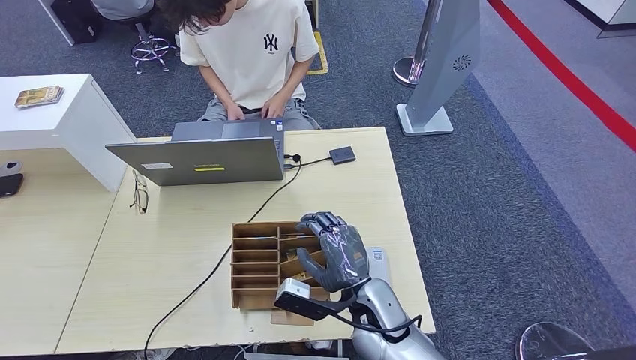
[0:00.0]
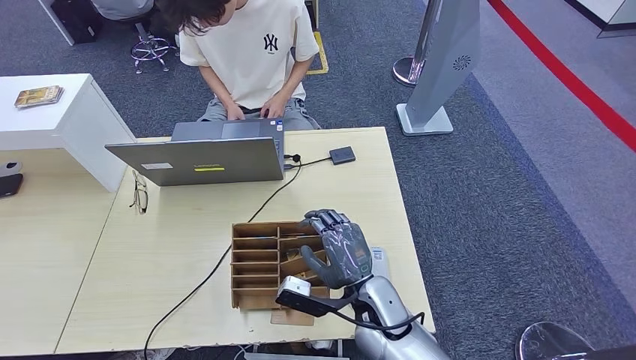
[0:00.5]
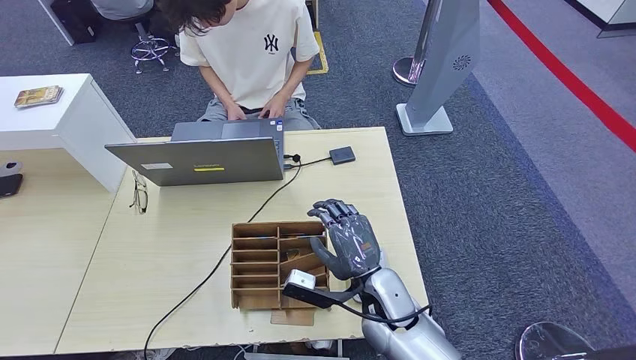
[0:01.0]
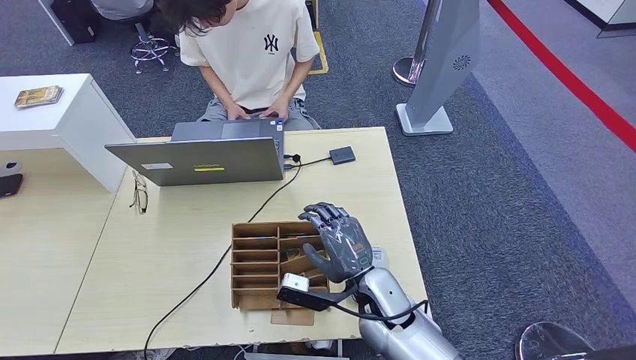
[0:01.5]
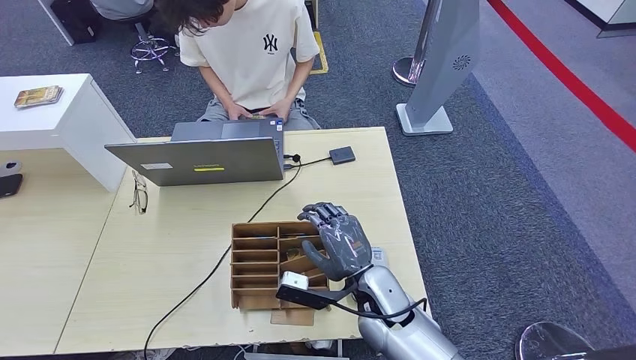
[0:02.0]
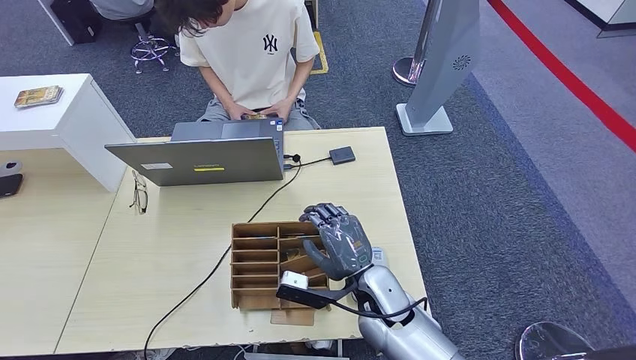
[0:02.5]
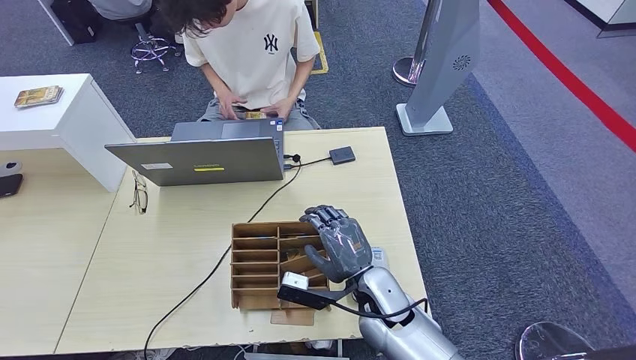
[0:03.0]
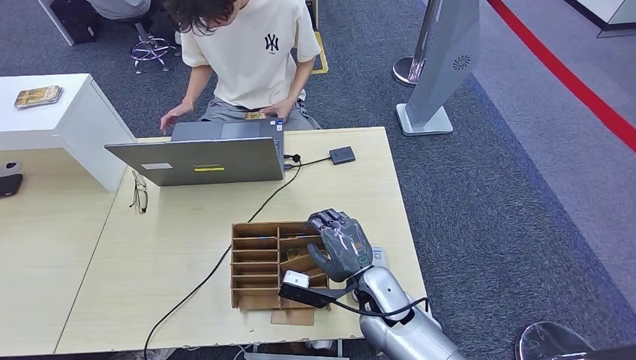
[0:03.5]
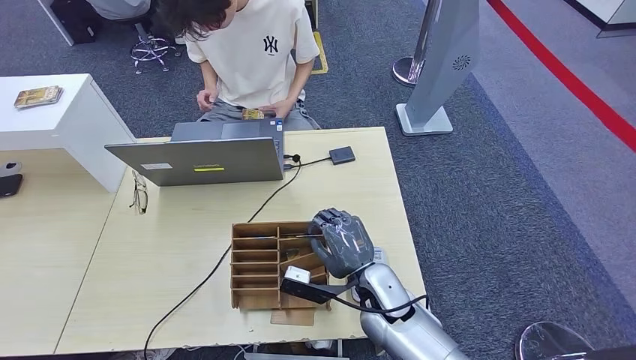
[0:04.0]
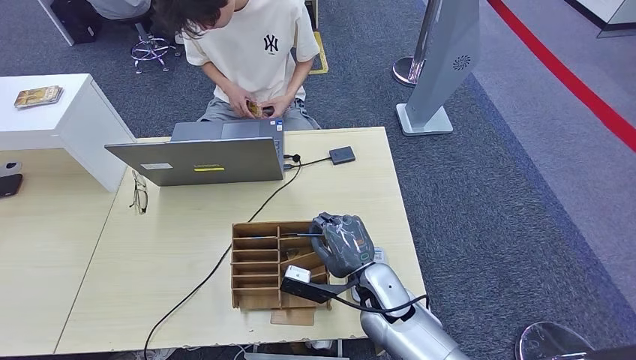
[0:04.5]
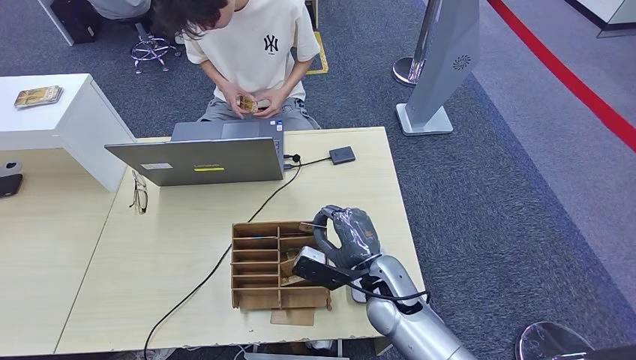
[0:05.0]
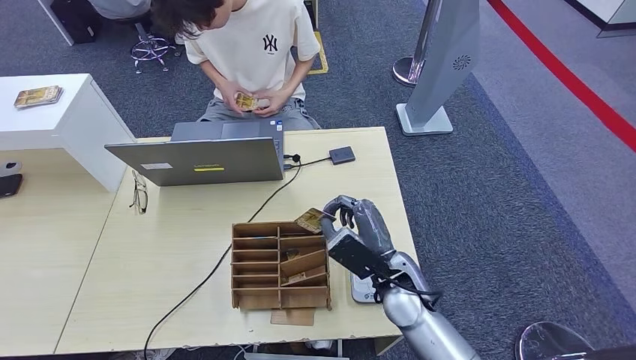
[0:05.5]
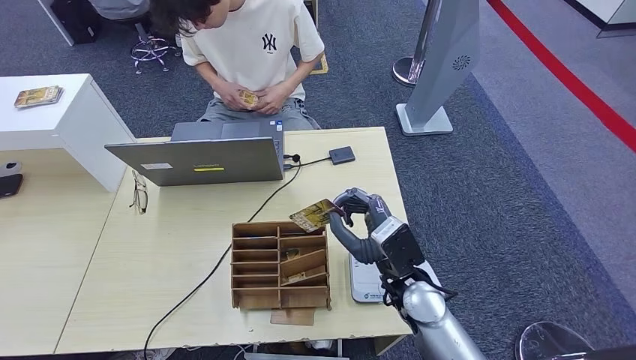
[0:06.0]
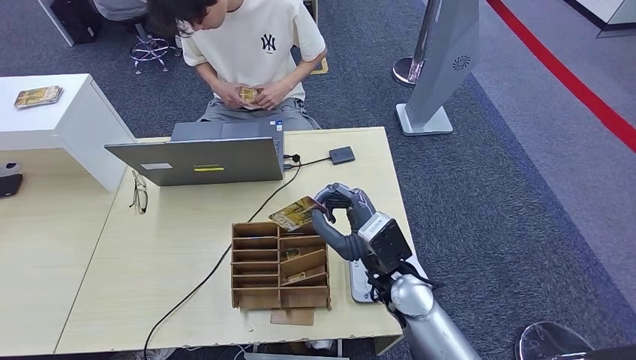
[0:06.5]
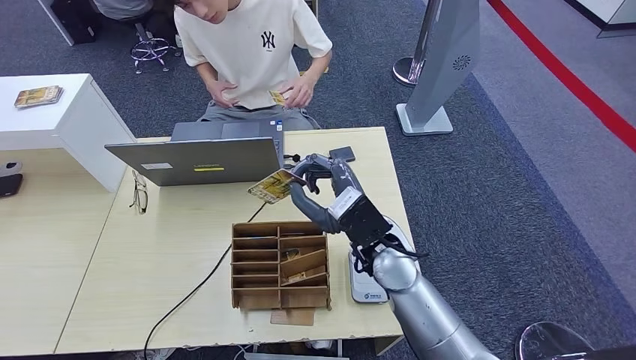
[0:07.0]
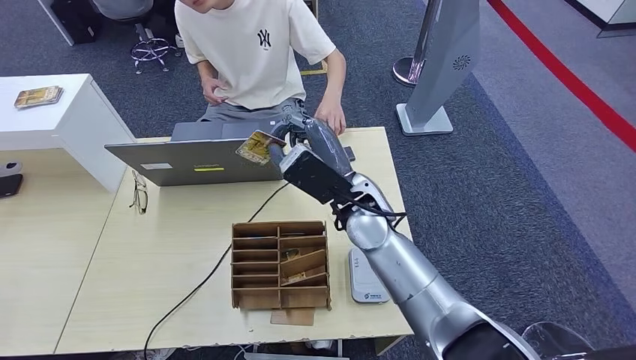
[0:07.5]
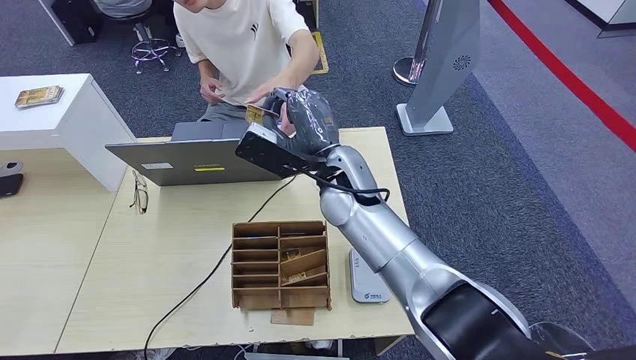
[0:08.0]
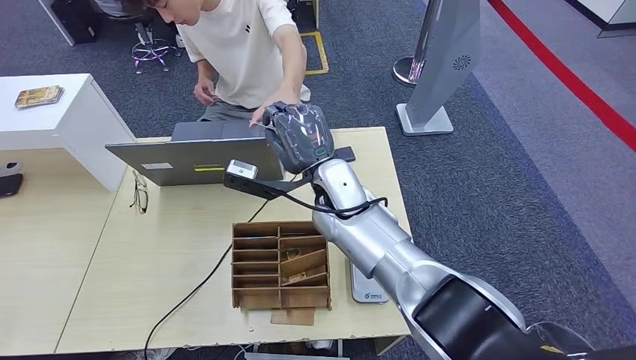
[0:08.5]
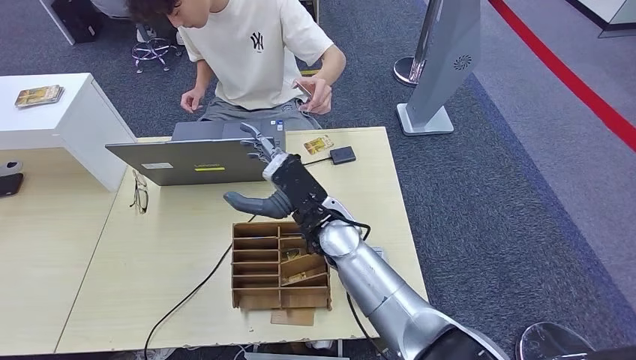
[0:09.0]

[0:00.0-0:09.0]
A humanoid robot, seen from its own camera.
Step, 0:00.5 to 0:05.5: Pick up the room key from the key card box.
Step, 0:06.0 to 0:09.0: Hand the room key to the person.
0:00.0 to 0:04.5: The hands move only a little.
0:04.5 to 0:07.0: The right hand is displaced upward by some 10 cm.
0:07.0 to 0:09.0: The right hand moves to the left, roughly 10 cm.
